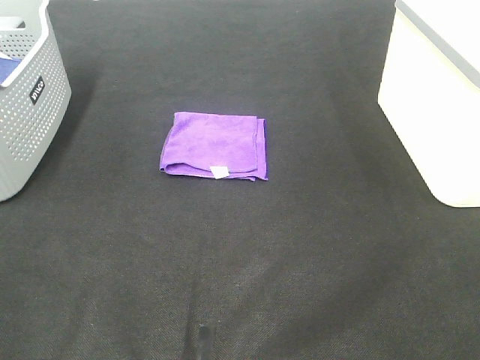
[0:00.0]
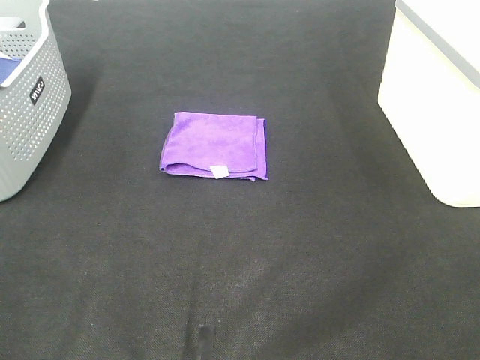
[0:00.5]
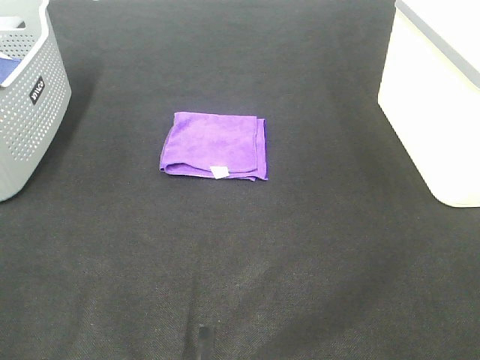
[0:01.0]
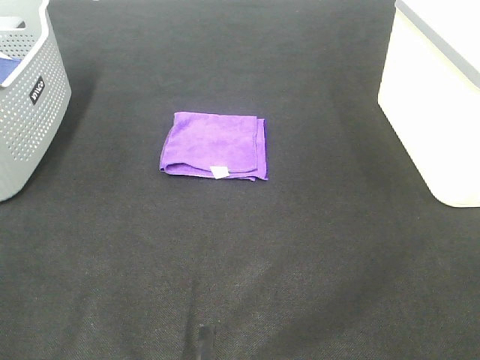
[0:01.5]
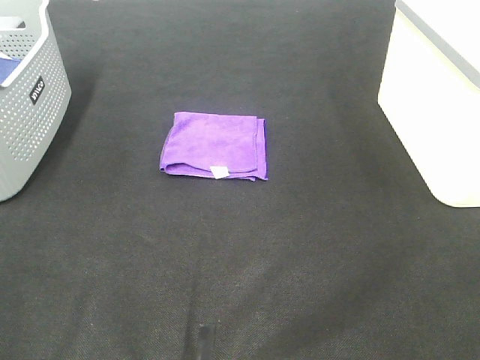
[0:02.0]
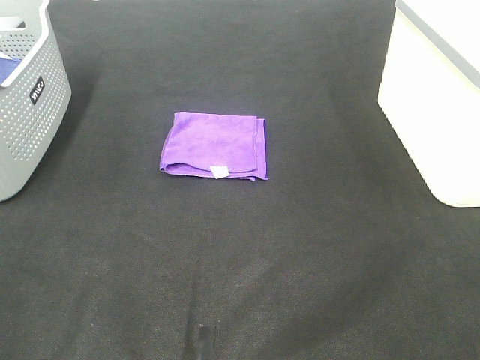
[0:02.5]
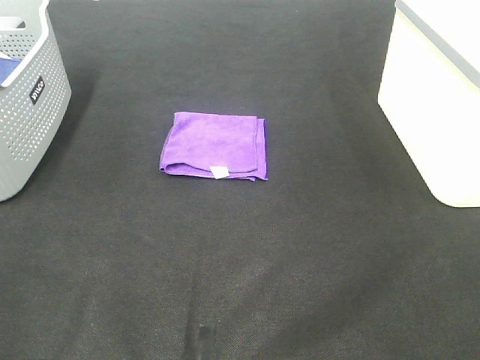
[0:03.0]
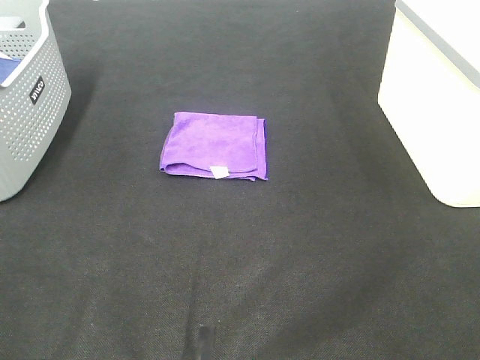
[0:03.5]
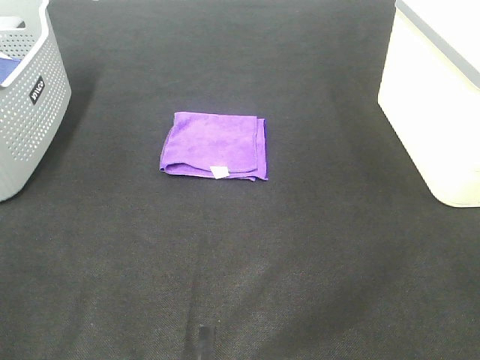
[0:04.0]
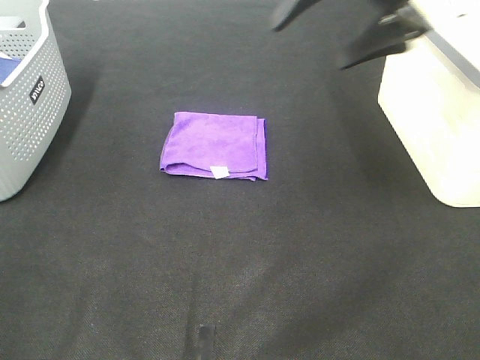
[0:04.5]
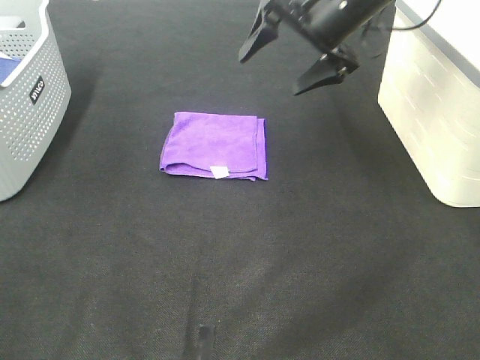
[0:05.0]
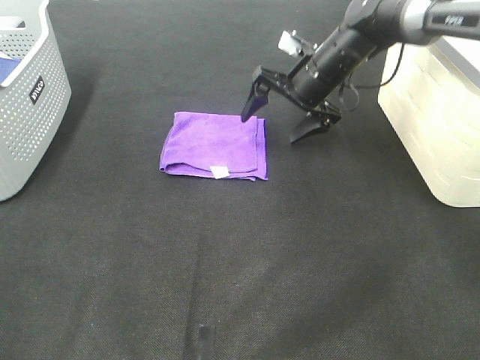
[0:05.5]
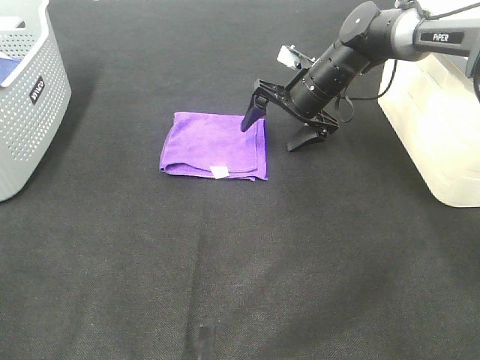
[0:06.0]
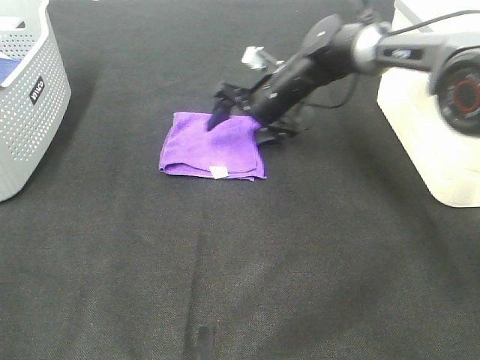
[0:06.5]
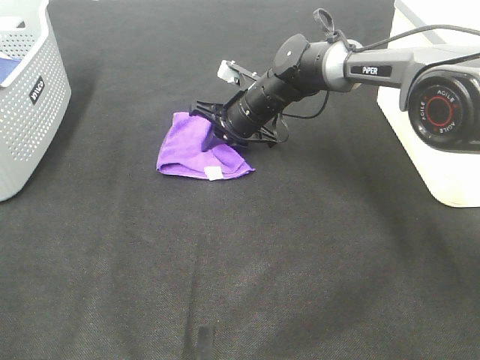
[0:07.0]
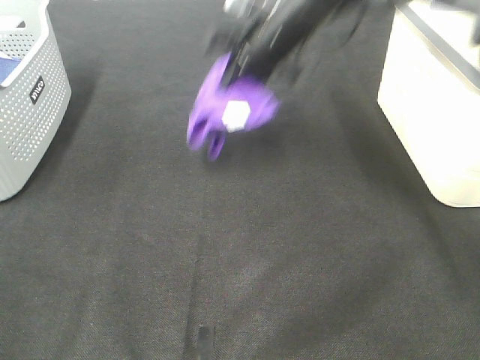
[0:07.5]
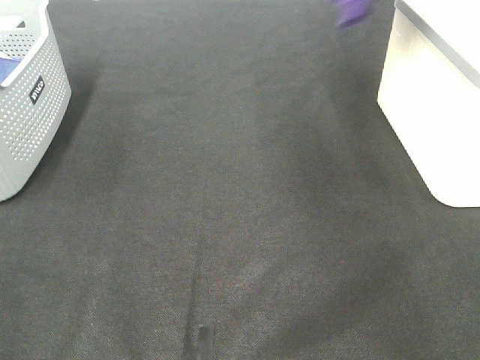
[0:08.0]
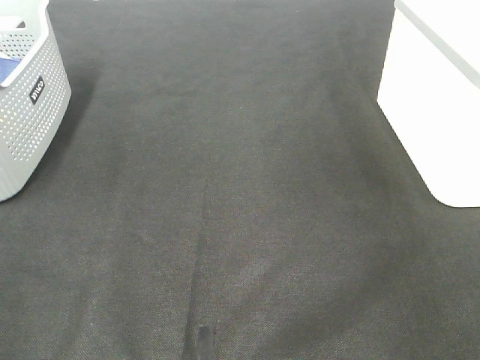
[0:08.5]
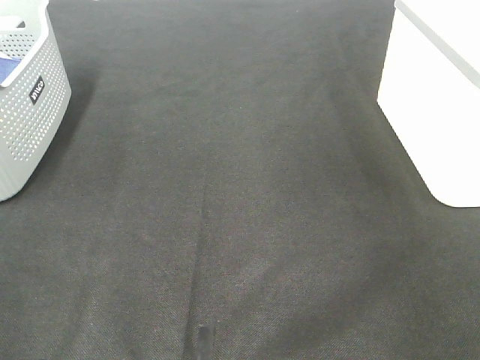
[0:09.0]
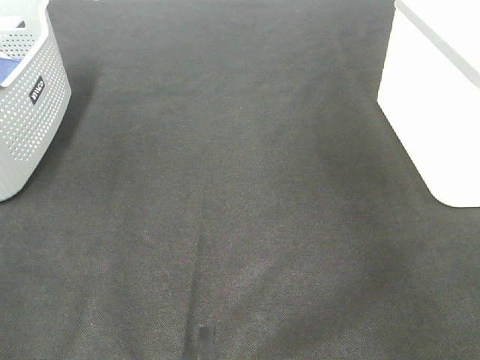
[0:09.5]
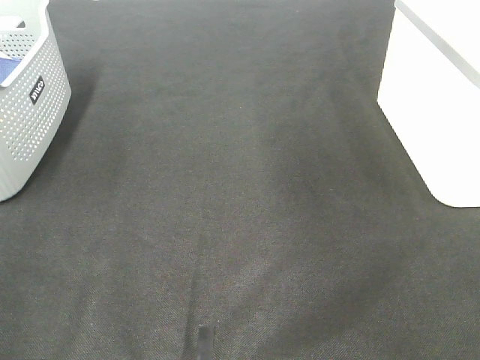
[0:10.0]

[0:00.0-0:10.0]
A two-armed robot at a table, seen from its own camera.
Step, 0:00.0 to 0:07.0: Right hand: grab the folded purple towel.
Step, 0:07.5 to 0:08.5: Right hand: place the purple towel in right basket.
0:00.0 to 0:02.0: Both grippers stay about where they are.
0:04.0 to 0:06.0: The right gripper travels forward, downward and to the left by roughly 40 cm.
0:06.0 to 0:08.0: The right gripper travels upward and to the right by some 35 cm, and closes up.
0:08.0 to 0:10.0: The right gripper shifts some 10 cm backward, travels to the right and back again, approximately 15 cm each way, and opens up.

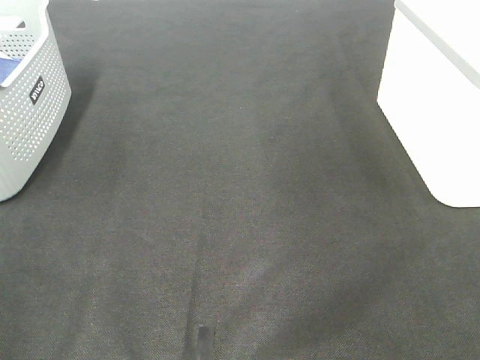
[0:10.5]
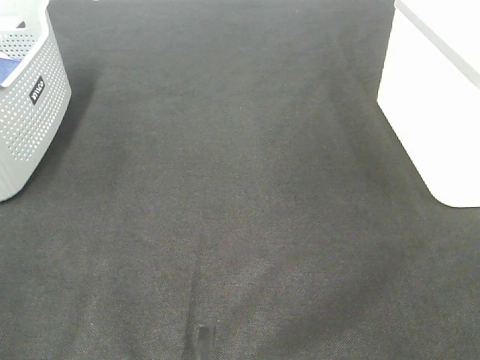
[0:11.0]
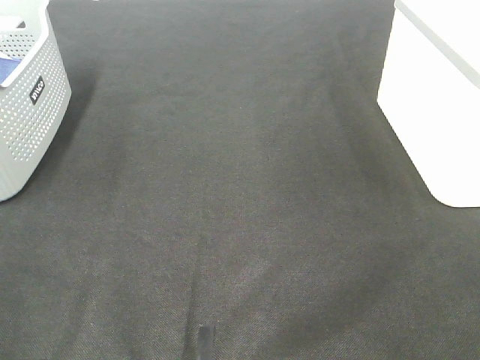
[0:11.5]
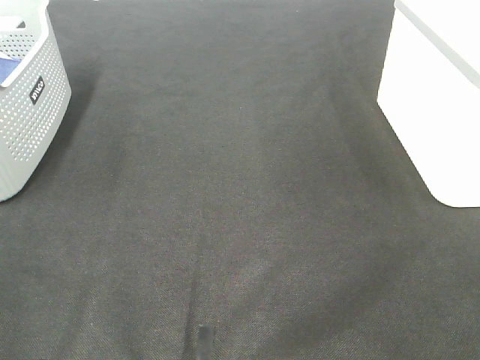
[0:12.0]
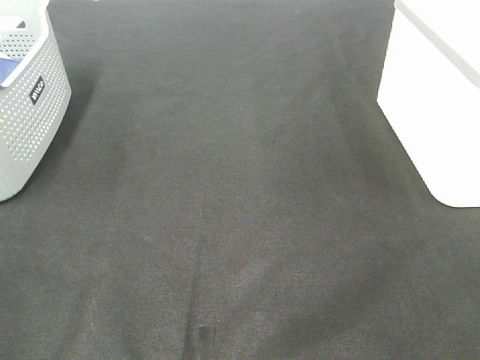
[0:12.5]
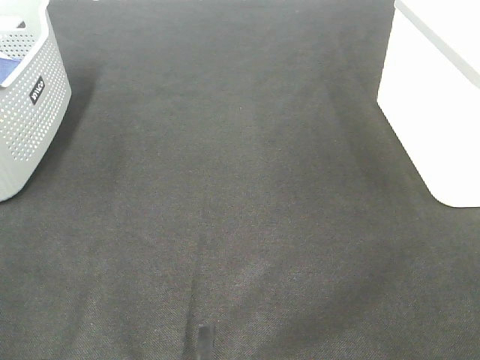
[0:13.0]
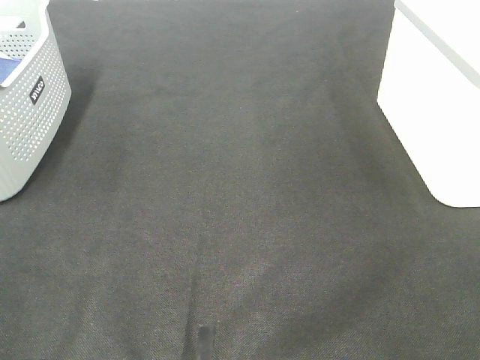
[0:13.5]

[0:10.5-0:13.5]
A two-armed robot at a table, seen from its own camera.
0:12.0 to 0:13.5: The two grippers keep their place.

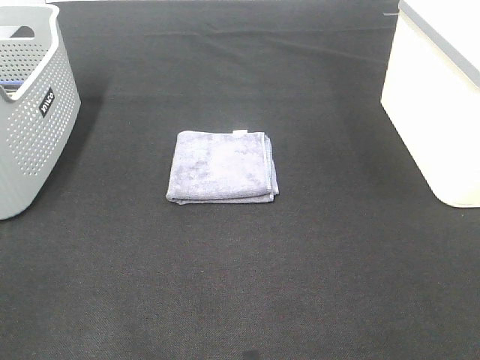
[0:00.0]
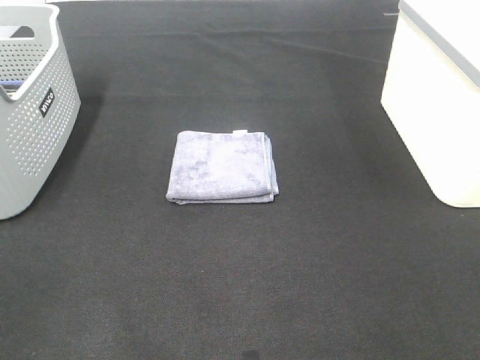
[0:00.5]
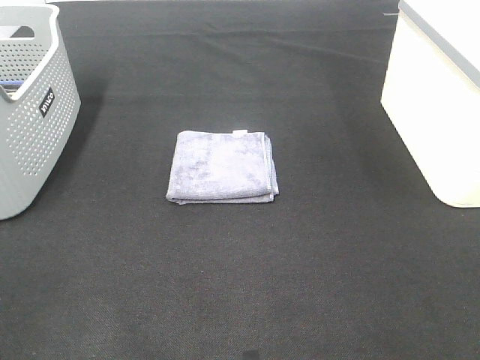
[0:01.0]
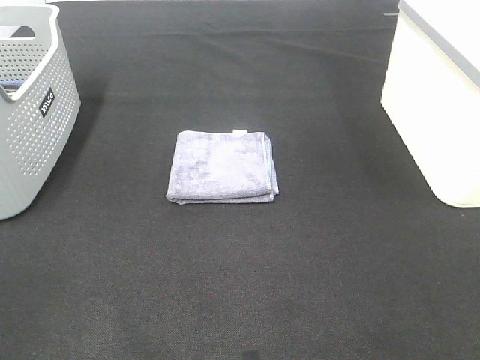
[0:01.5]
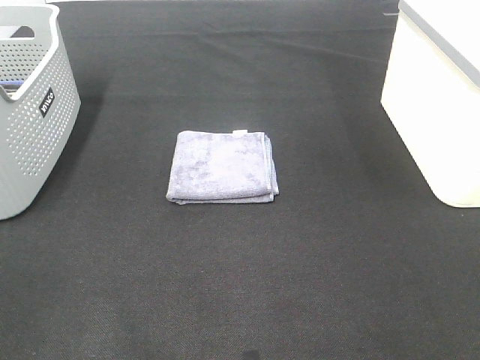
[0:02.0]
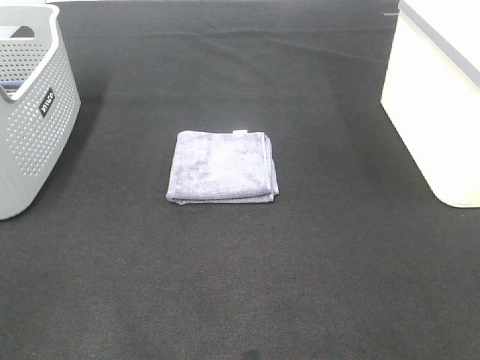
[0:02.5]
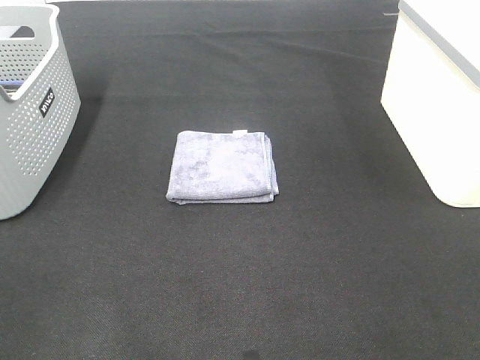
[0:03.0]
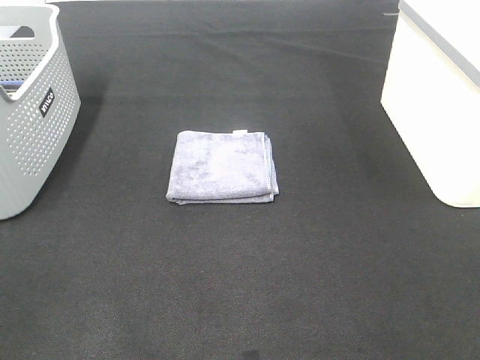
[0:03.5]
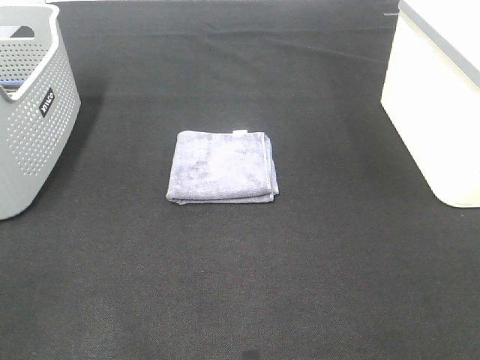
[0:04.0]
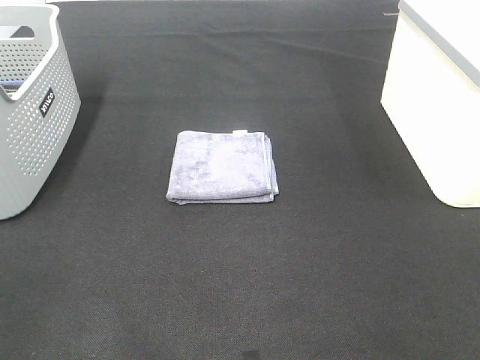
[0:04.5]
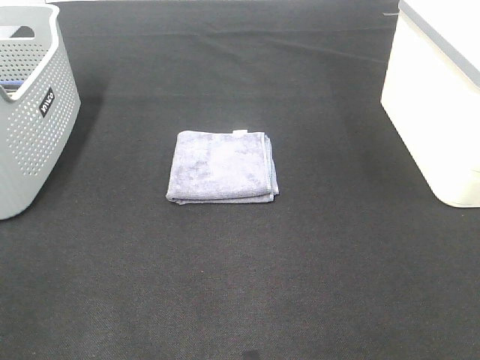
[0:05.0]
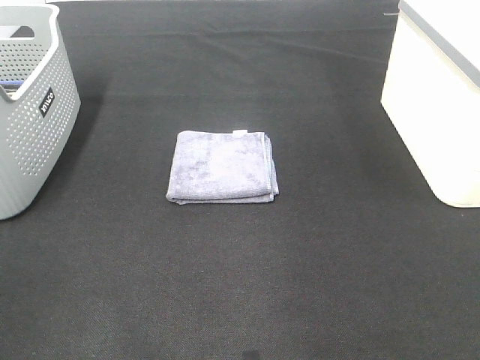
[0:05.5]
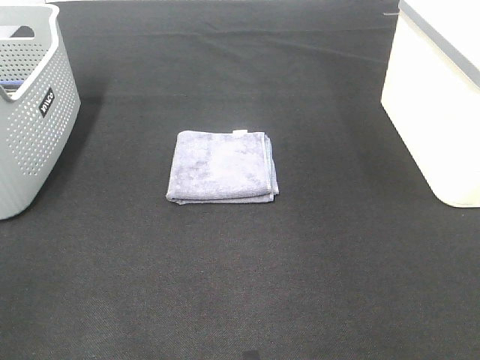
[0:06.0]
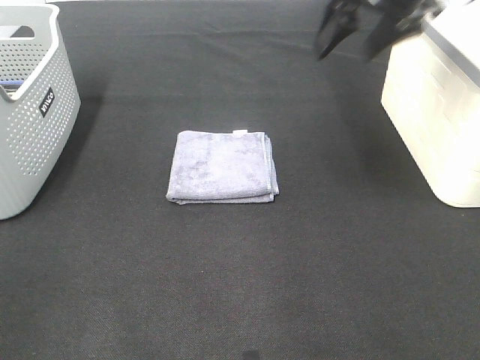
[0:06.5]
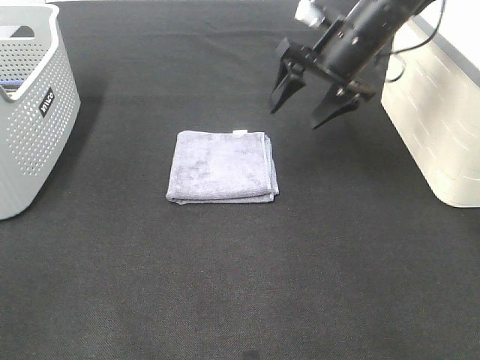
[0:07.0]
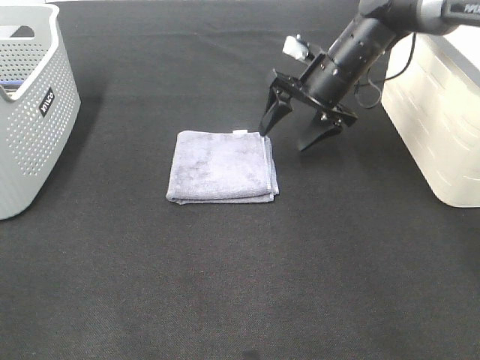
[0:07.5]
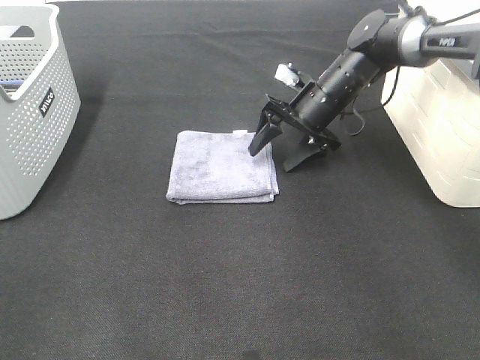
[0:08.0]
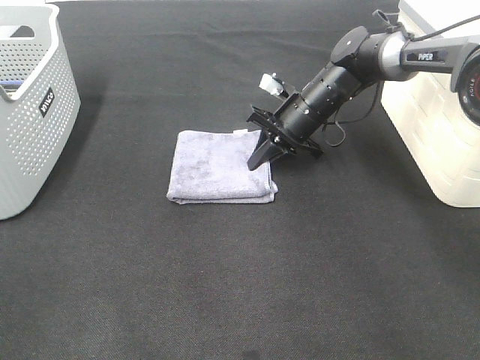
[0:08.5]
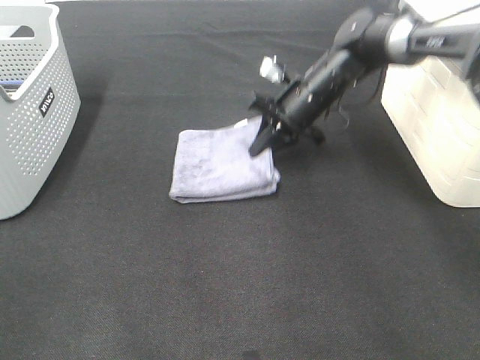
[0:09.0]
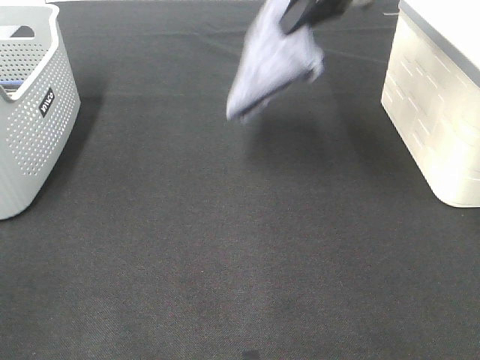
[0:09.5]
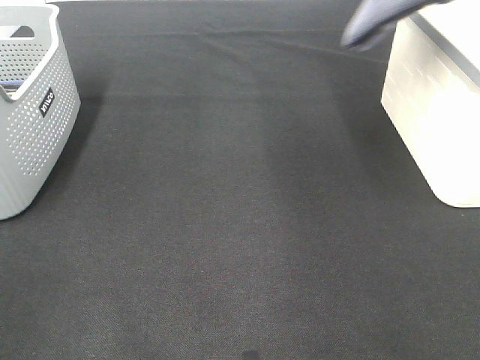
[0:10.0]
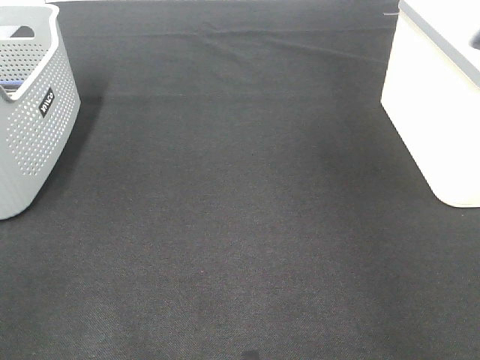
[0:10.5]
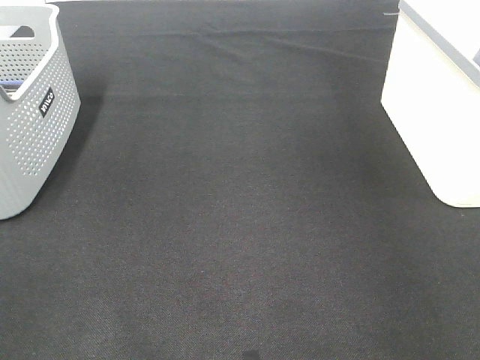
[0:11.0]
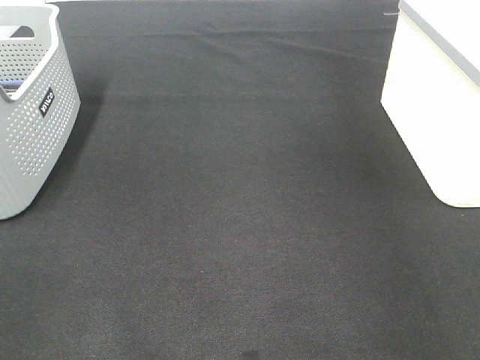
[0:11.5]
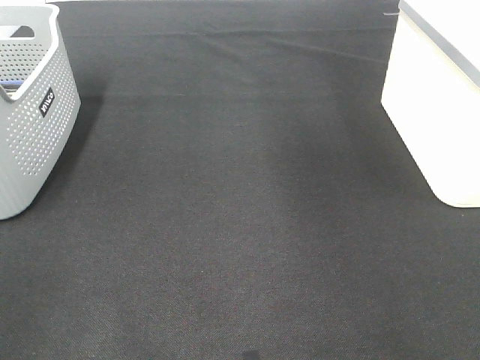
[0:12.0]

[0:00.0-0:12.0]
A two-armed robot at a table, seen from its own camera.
Step, 0:00.0 to 0:08.5: Right hand: grab the folded grey towel.
Step, 0:09.0 to 0:11.0: Right hand: place the grey towel in right basket.
0:00.0 to 0:04.0: The two grippers keep their place.
0:06.0 to 0:08.0: The right gripper moves downward and to the left, some 35 cm.
0:08.0 to 0:10.0: The right gripper is displaced upward and to the right by about 35 cm, and closes.
0:10.0 to 0:12.0: The right gripper moves approximately 15 cm to the right and comes back, and opens up.

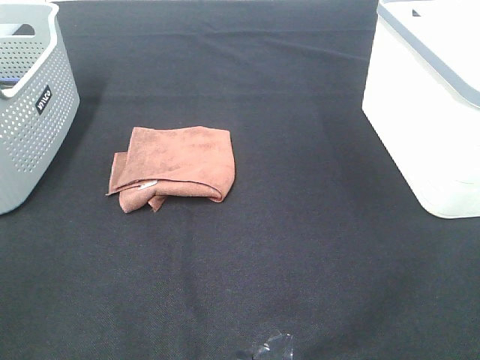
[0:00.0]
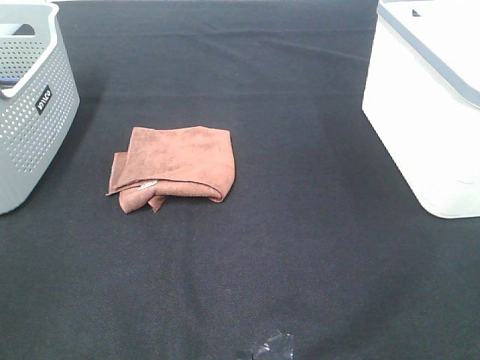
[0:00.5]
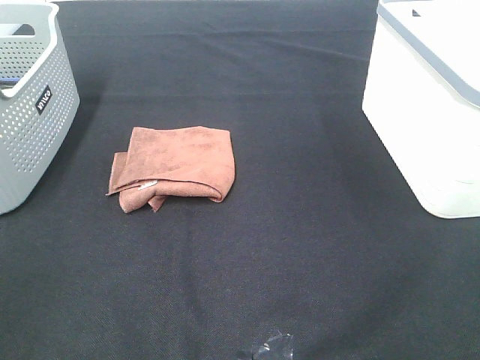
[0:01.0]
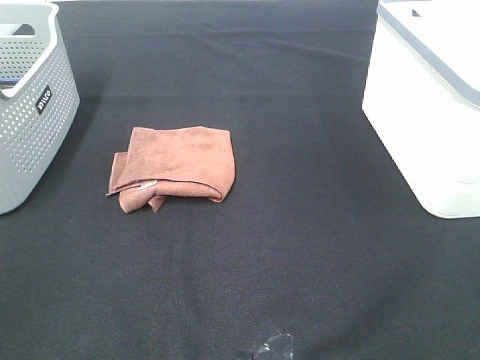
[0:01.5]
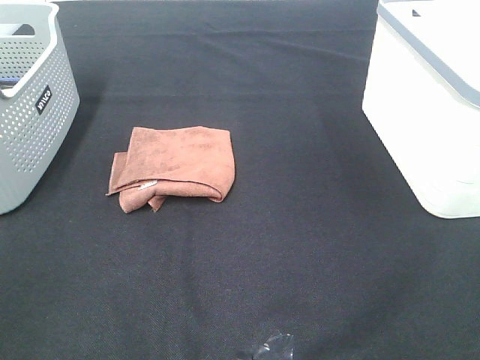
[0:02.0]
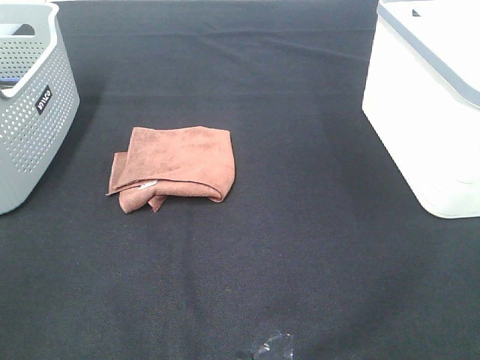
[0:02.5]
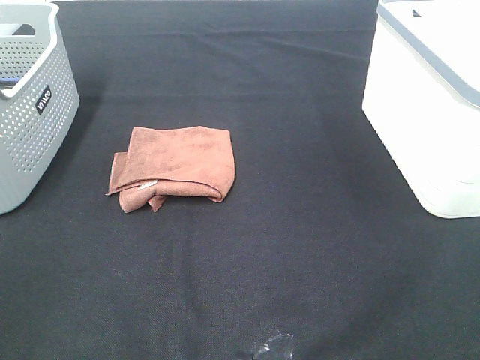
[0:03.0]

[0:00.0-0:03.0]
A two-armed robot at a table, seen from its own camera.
0:00.0 to 0:03.0: Both grippers stay about where they are.
